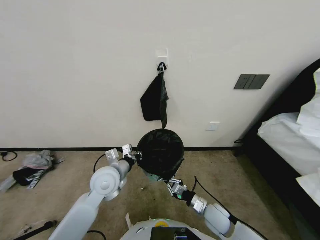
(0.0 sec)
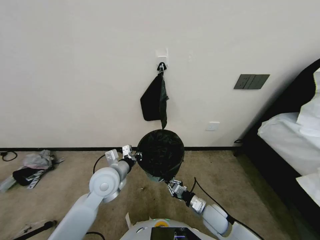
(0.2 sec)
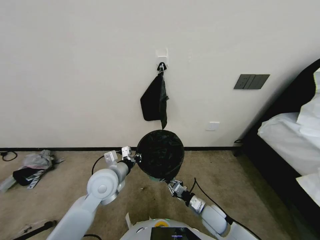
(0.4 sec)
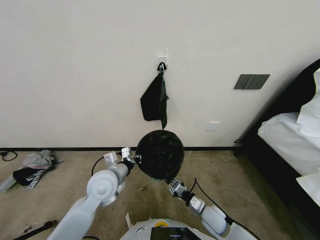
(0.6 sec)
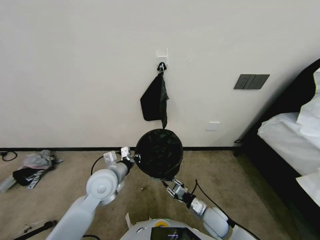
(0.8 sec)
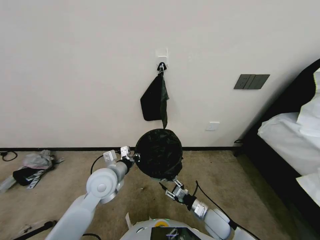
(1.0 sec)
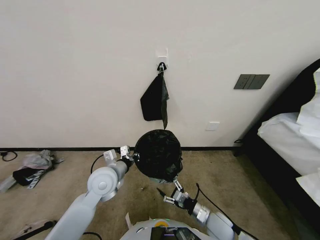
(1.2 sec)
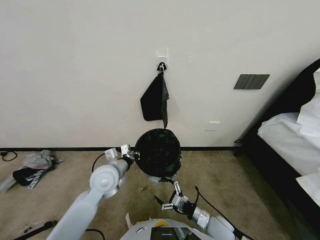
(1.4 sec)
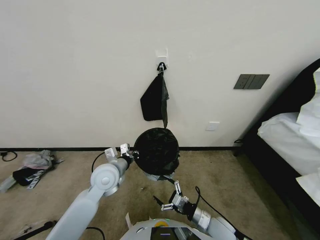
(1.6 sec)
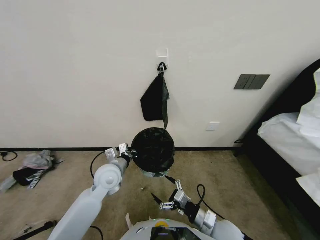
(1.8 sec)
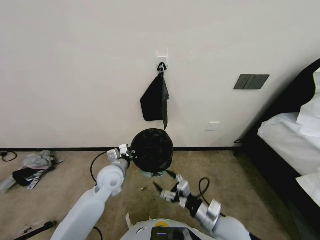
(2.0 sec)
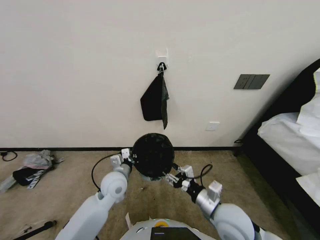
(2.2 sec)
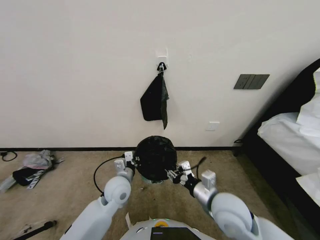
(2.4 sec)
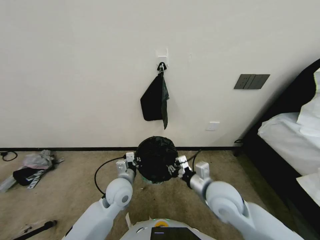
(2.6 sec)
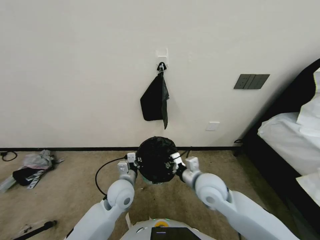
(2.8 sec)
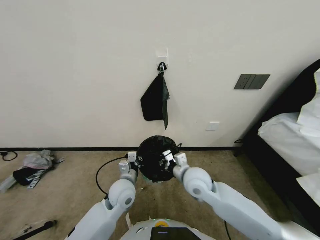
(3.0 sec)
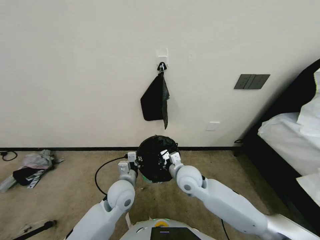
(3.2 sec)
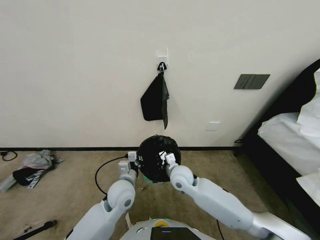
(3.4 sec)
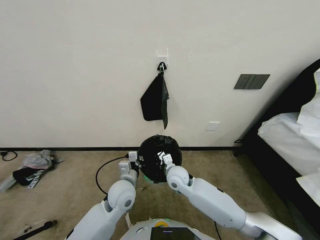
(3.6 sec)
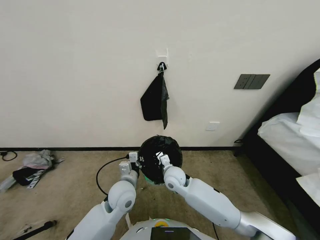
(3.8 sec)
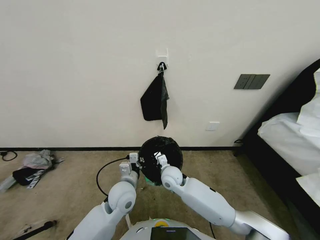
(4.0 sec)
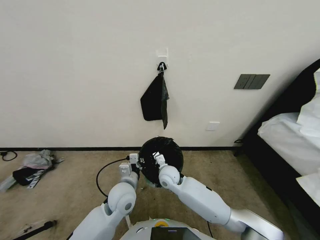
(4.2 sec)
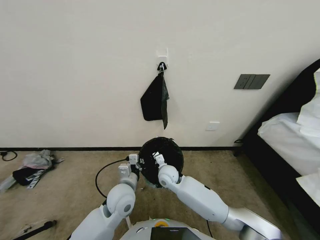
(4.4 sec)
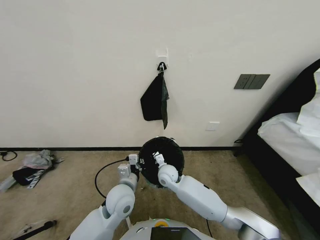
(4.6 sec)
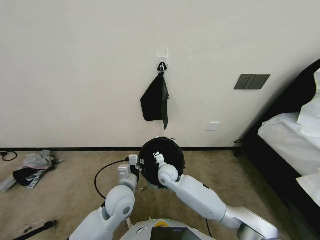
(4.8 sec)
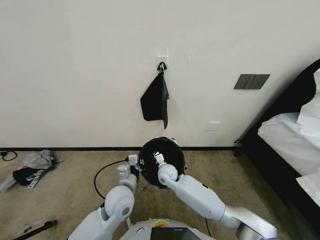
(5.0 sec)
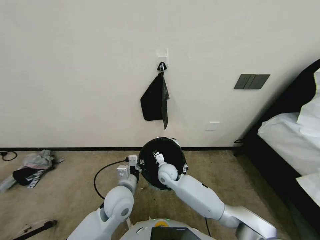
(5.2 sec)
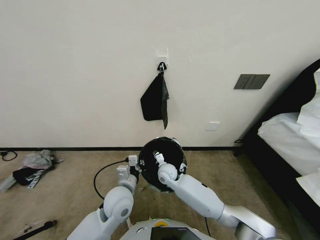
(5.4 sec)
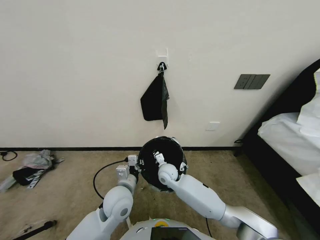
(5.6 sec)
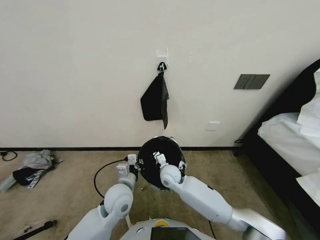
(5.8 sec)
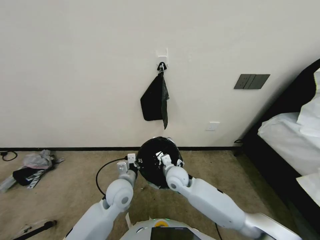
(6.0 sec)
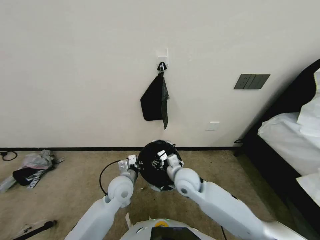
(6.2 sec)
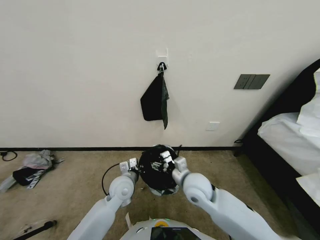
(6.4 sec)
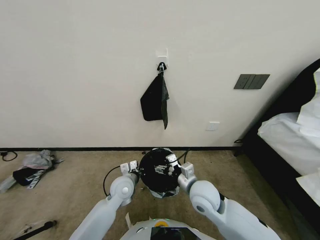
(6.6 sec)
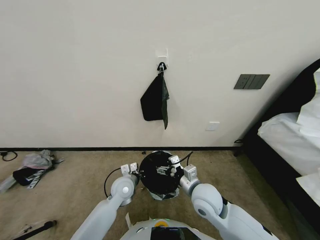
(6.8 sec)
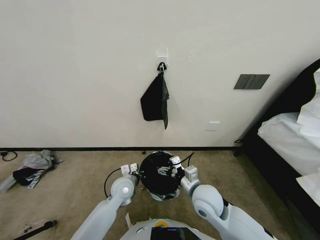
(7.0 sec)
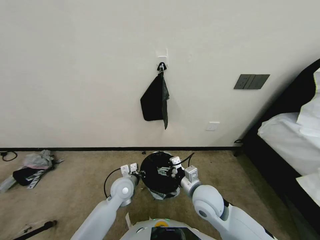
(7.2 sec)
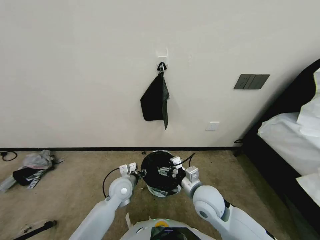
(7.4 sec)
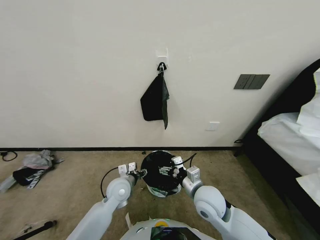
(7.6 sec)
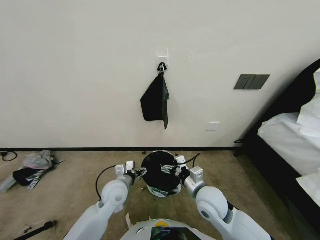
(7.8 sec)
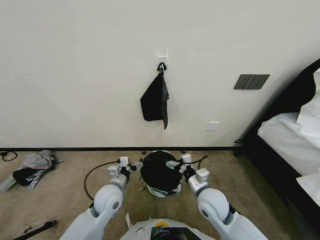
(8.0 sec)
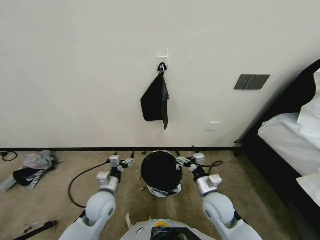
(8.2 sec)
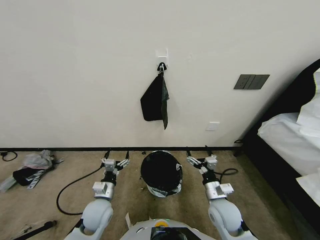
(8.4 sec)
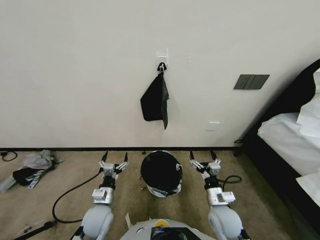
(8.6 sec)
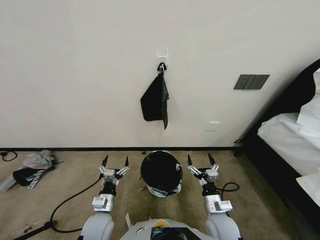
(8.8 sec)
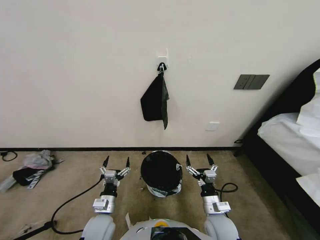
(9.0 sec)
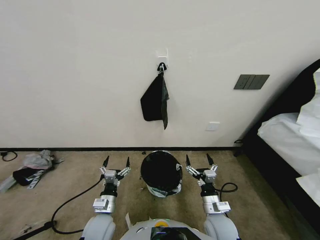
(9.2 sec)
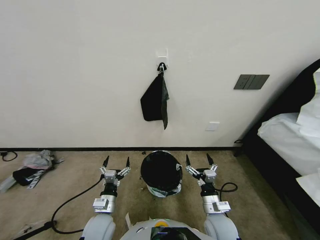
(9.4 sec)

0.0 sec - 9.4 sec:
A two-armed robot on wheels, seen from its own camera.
Task of the whole recording: Place a trash bag onto the trash bin.
0.0 sec - 1.6 sec: The right gripper opens up.
1.6 sec - 3.2 sec: The left gripper heads downward and to the right, covering some 10 cm. The right gripper moves upward, forward and to the left, some 25 cm, and closes.
3.2 sec - 4.8 sec: The right gripper goes some 15 cm downward, to the left and forward.
4.8 sec - 6.2 sec: The right gripper moves upward, some 5 cm, and opens up.
6.2 sec - 7.8 sec: The right gripper moves backward and to the right, about 10 cm, and opens. The left gripper opens its fingers.
7.8 sec - 9.4 sec: The left gripper is displaced backward by about 10 cm. Meanwhile the right gripper shifts about 10 cm downward and backward.
